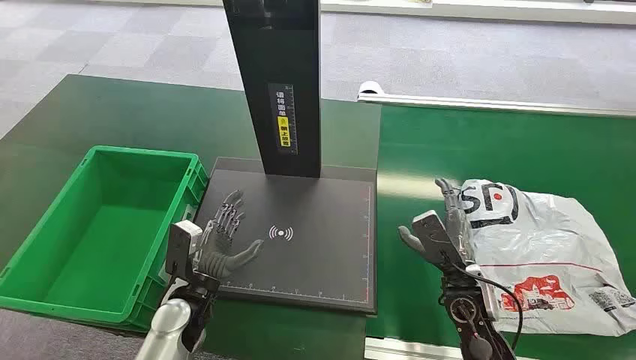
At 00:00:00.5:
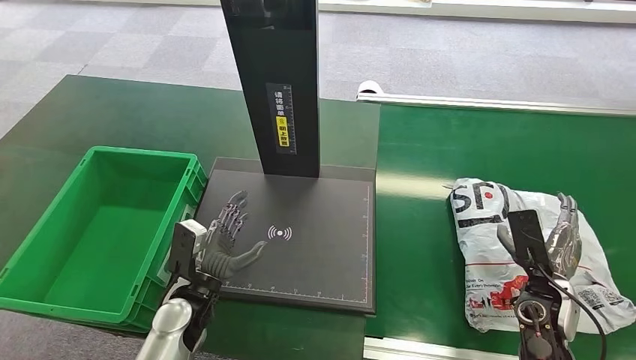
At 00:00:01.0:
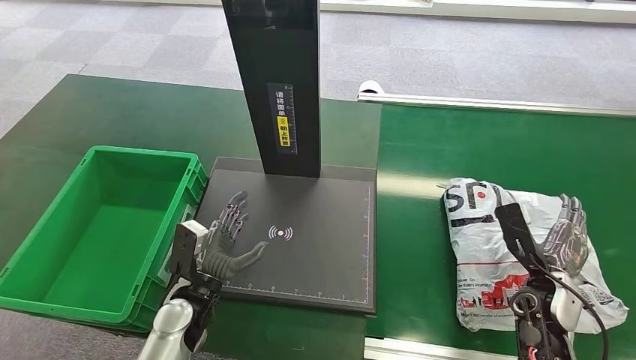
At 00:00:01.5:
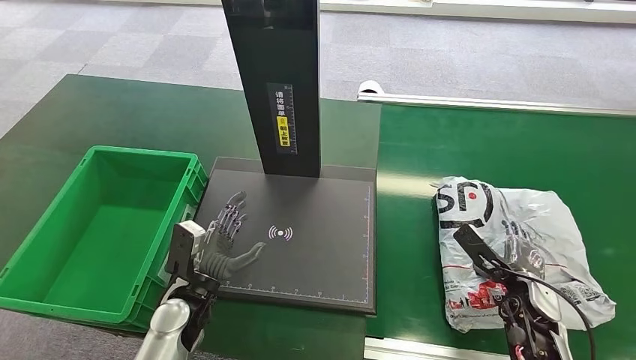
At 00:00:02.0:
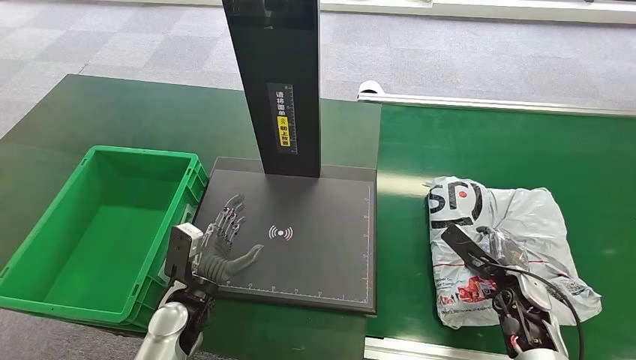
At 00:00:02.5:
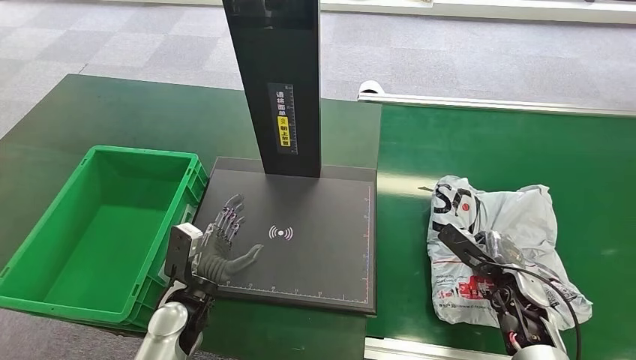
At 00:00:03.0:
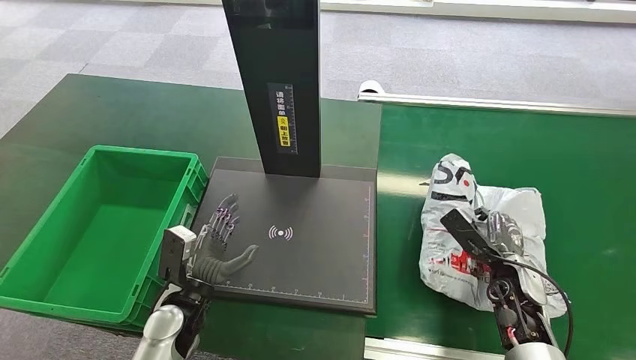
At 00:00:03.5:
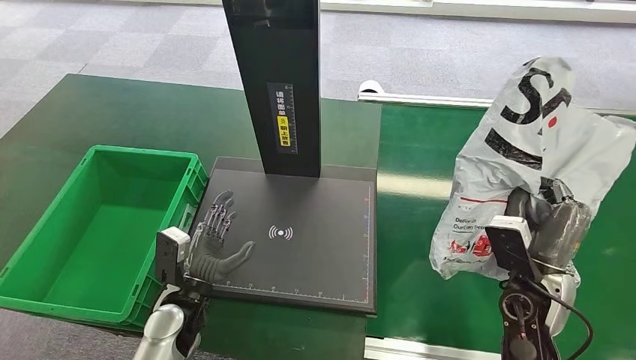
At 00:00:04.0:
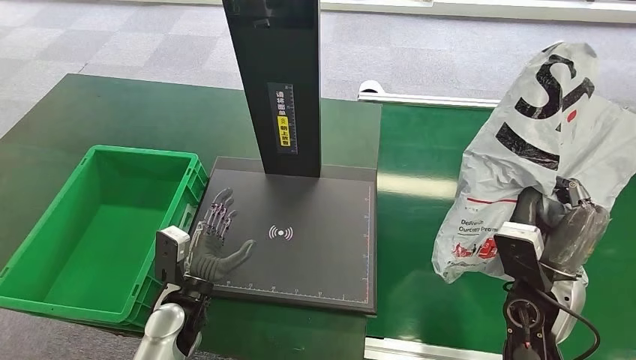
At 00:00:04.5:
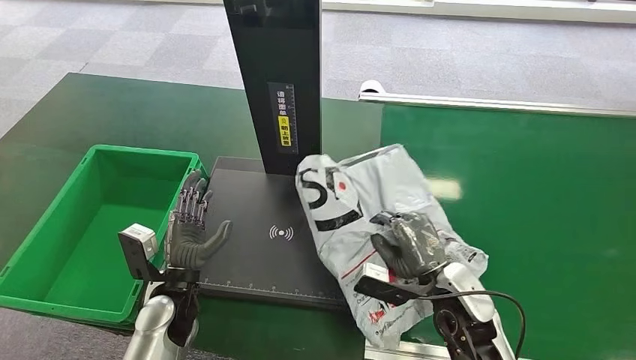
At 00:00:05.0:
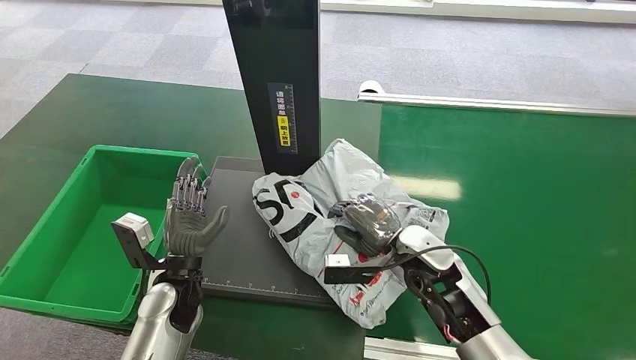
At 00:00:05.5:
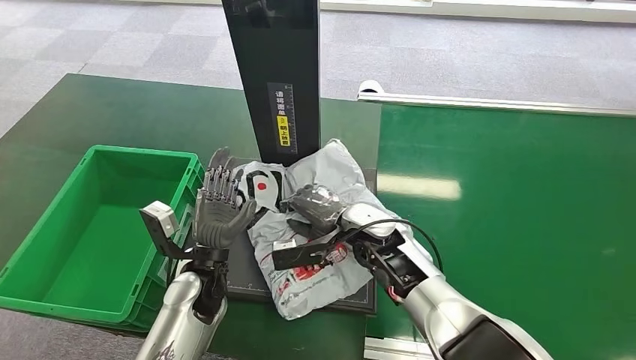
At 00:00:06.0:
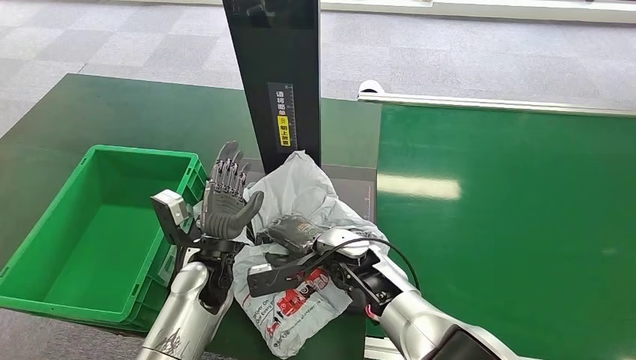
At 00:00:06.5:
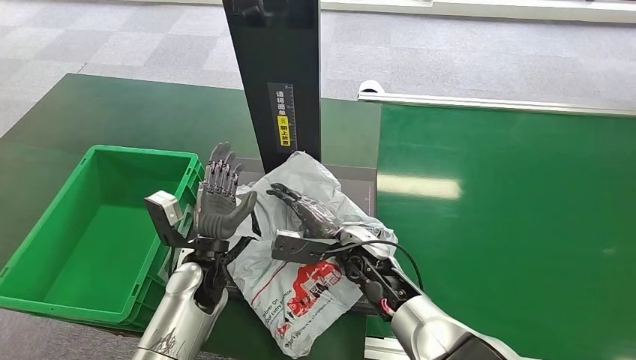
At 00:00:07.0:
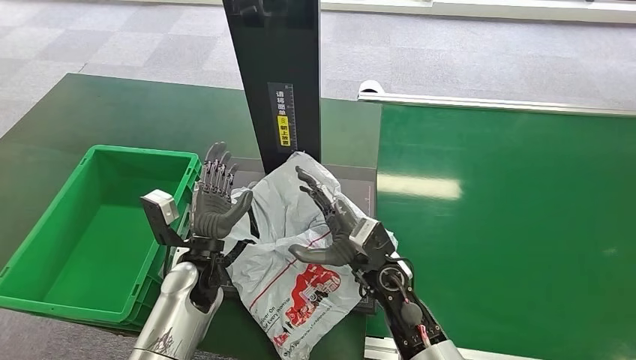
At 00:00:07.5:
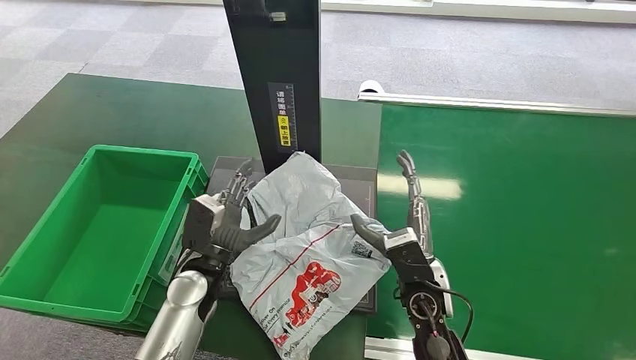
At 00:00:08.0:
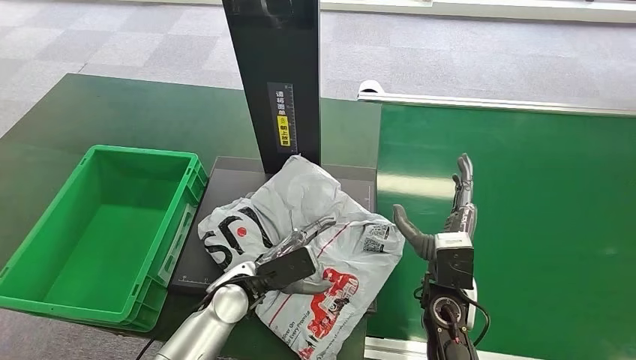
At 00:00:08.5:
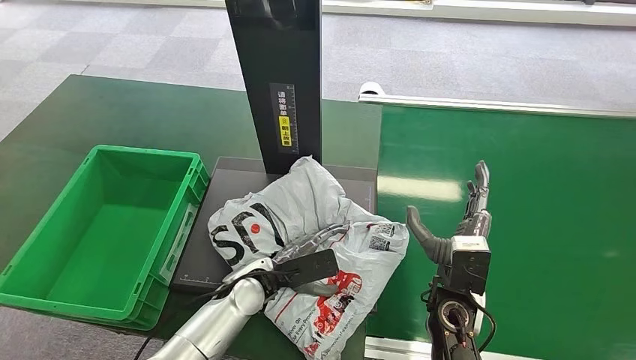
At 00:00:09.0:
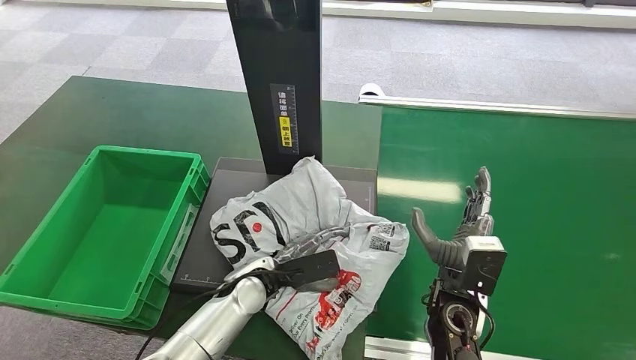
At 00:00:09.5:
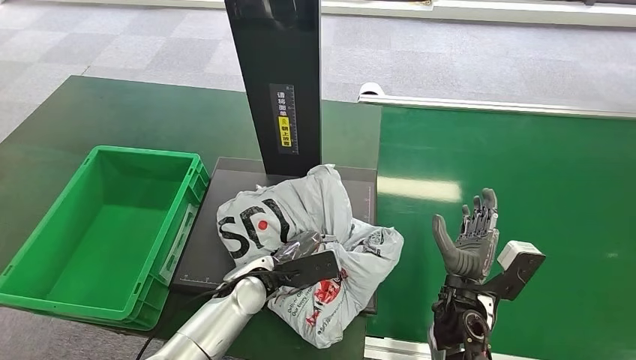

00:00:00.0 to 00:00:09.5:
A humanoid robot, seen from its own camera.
Task of the whole recording: Weigh the package on the weighing device and place it in the left basket.
Step, 00:00:00.0 to 00:00:04.0: Pick up the package from the conveyor belt.
Step, 00:00:04.5 to 00:00:07.0: Place the package onto the inbound machine.
00:00:02.0 to 00:00:04.0: The right hand goes approximately 15 cm upward and to the left.
00:00:05.5 to 00:00:07.5: The right hand shifts some 10 cm backward and to the right.

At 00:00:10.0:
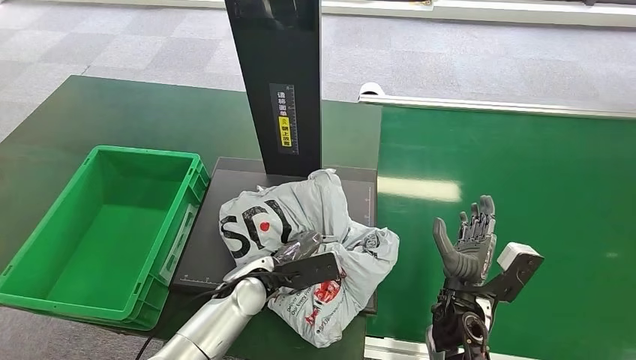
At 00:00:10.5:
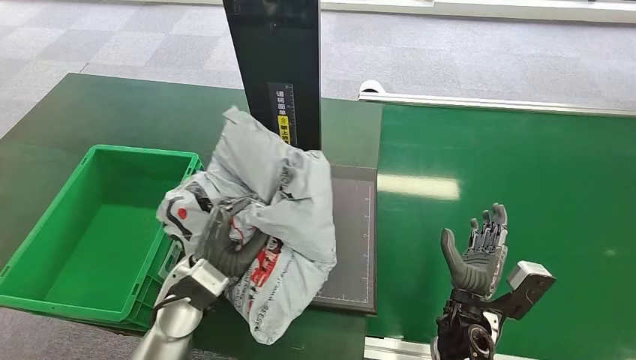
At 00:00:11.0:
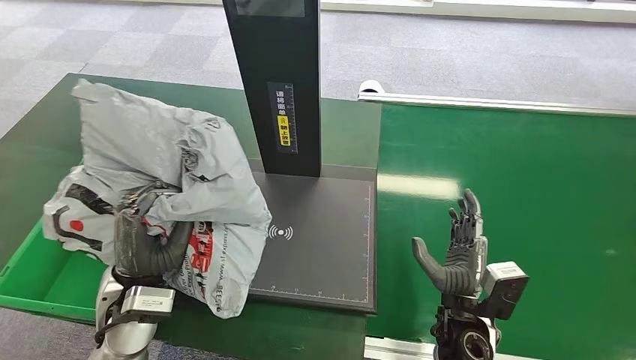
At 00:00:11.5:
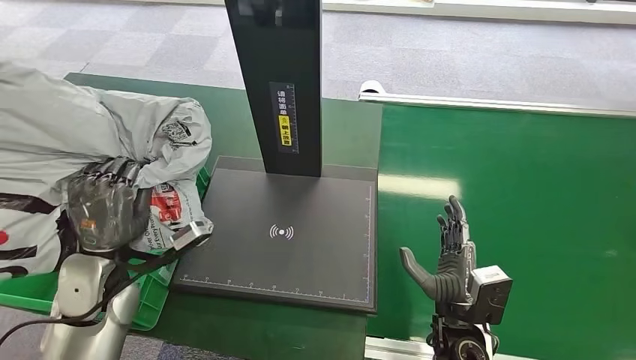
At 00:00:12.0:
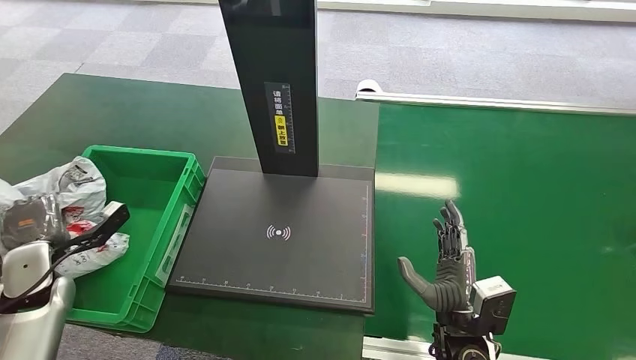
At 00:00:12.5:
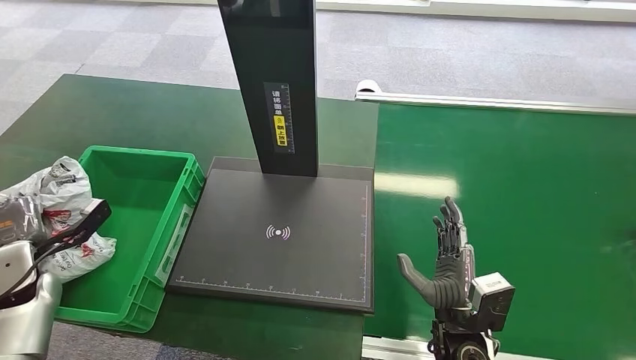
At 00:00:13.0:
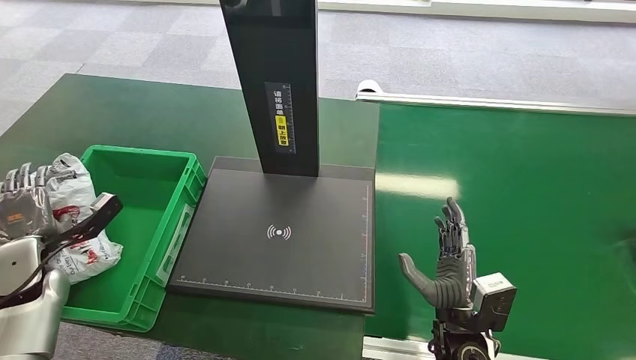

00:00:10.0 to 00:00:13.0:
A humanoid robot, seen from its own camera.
Task of the whole recording: Weigh the package on the weighing device and place it in the left basket.
Step, 00:00:11.5 to 00:00:13.0: Place the package into the parcel locker.

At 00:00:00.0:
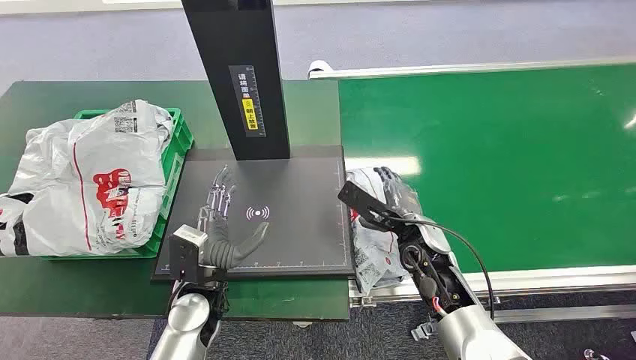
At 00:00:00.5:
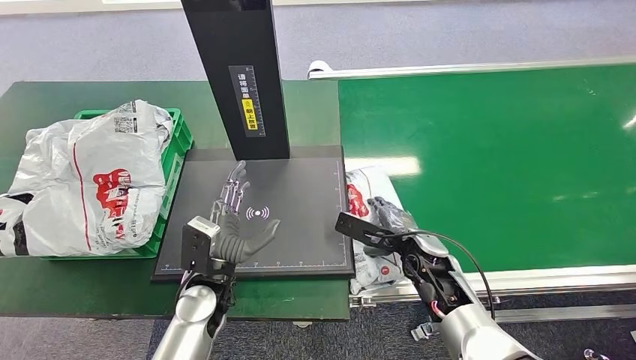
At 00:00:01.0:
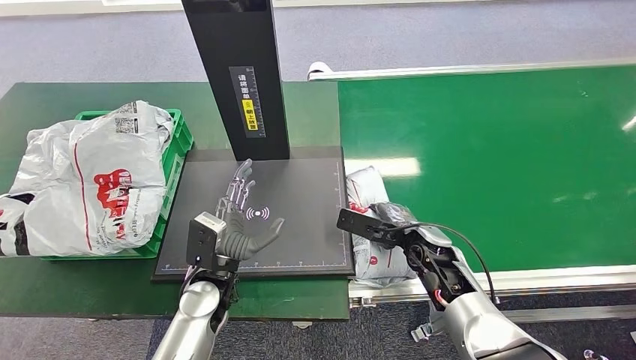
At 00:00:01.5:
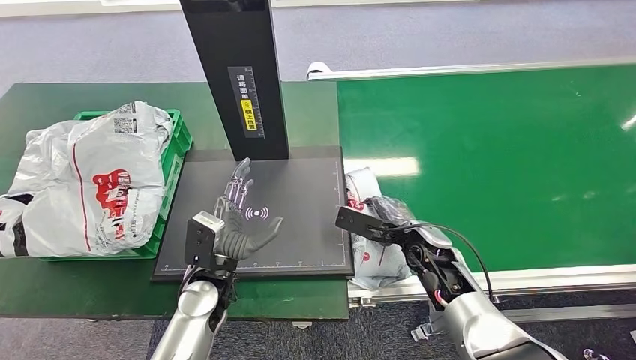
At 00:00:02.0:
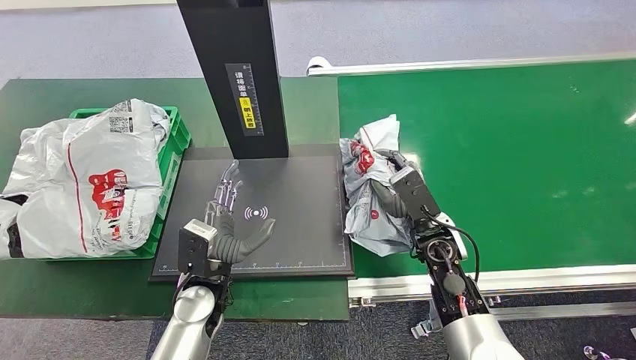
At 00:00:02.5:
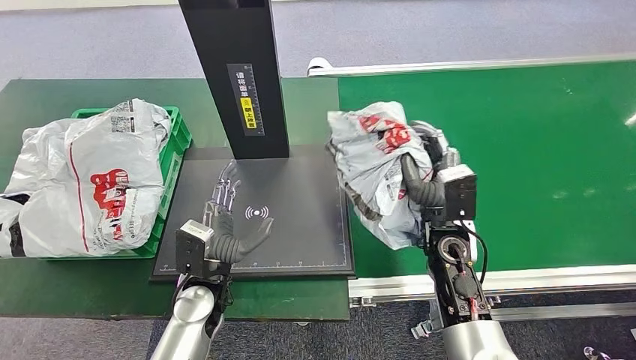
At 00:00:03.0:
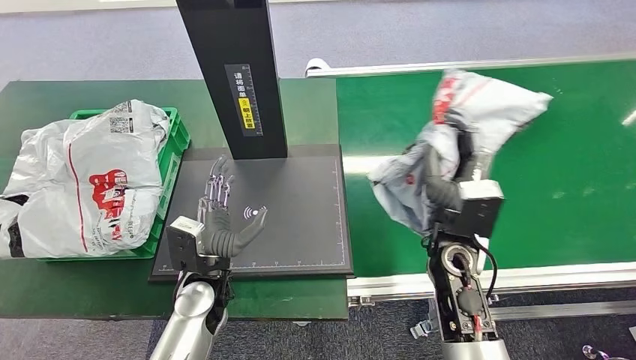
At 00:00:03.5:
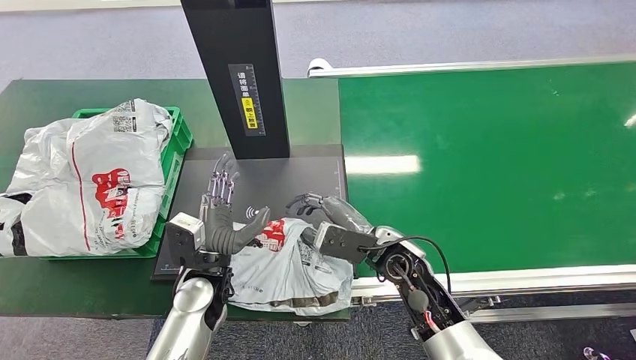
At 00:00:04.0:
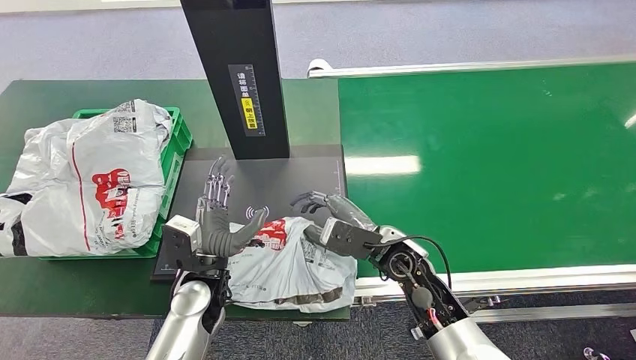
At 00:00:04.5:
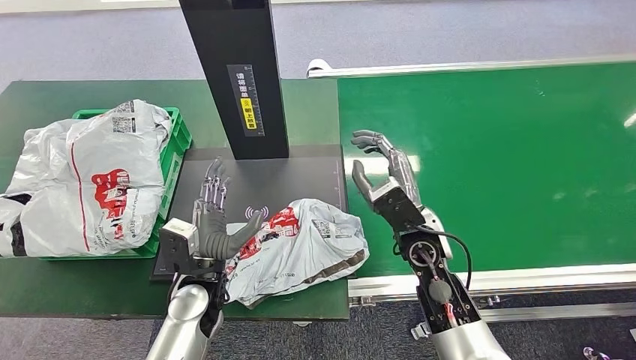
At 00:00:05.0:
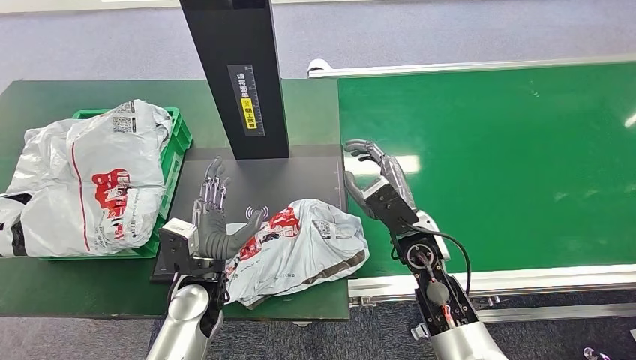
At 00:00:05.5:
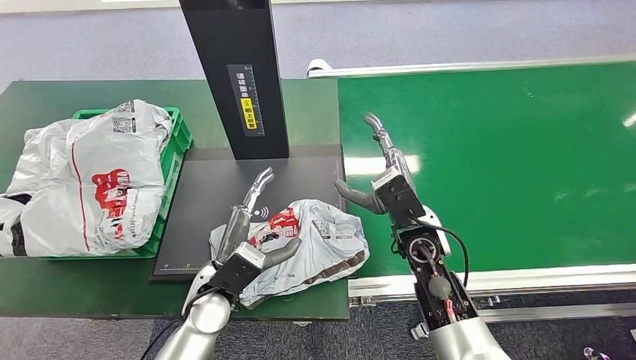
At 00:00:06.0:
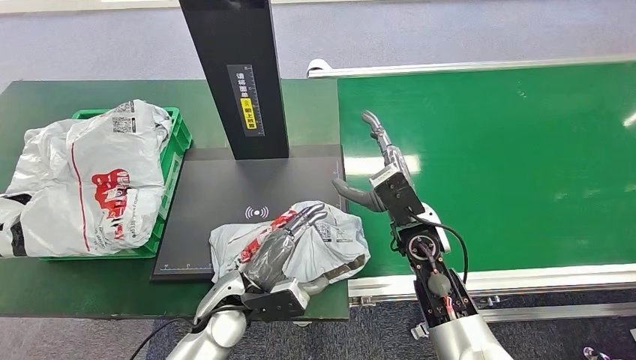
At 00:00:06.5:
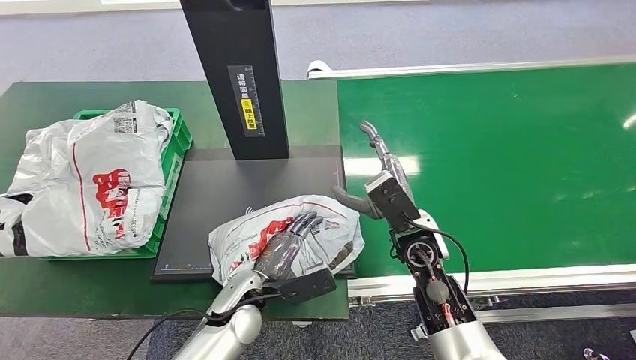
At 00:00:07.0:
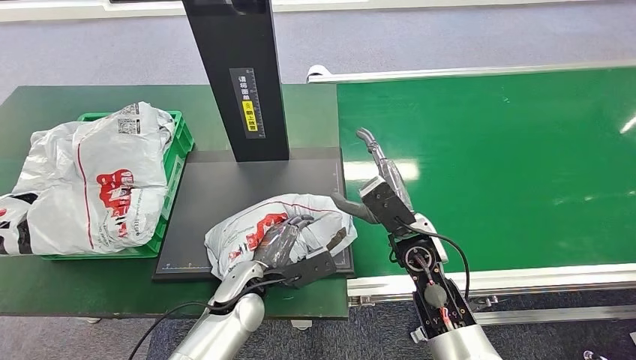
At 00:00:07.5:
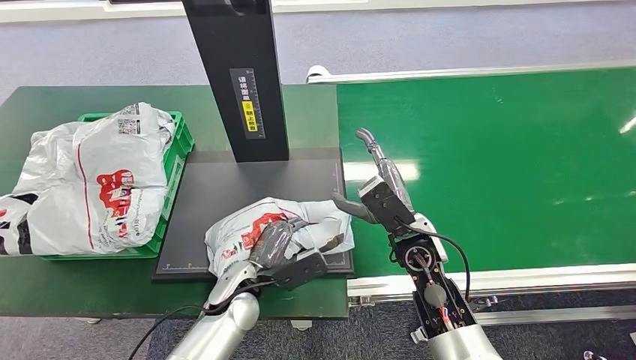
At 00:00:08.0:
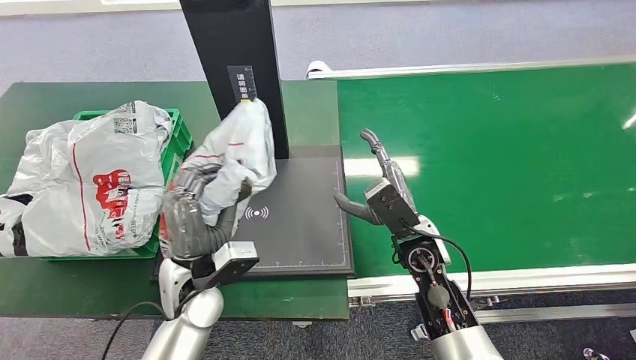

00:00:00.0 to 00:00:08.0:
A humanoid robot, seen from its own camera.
Task of the whole recording: Weigh the package on the weighing device and place it in the left basket.
Step, 00:00:00.0 to 00:00:02.5: Pick up the package from the conveyor belt.
Step, 00:00:03.5 to 00:00:05.0: Place the package onto the inbound machine.
00:00:06.0 to 00:00:08.0: The left hand changes place by roughly 5 cm.
